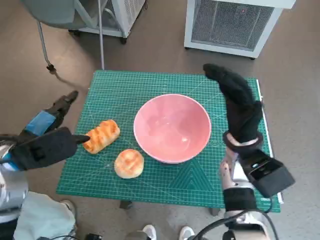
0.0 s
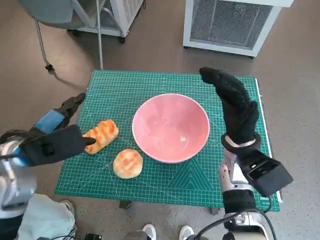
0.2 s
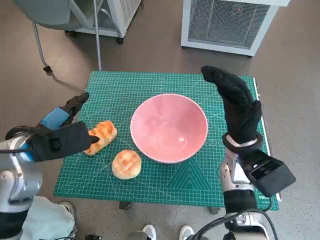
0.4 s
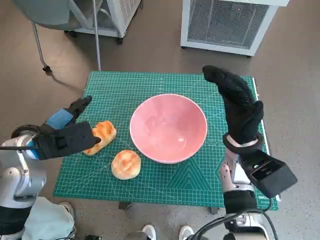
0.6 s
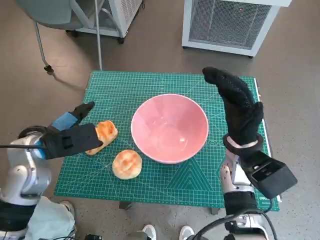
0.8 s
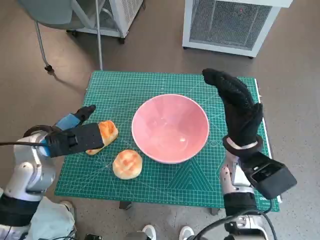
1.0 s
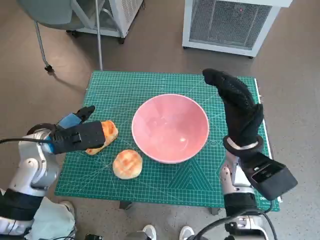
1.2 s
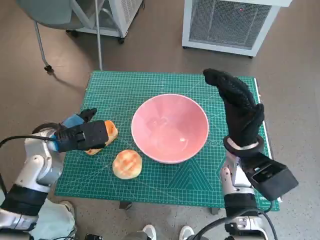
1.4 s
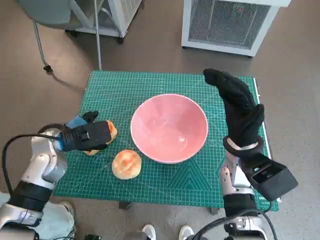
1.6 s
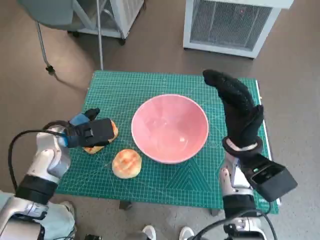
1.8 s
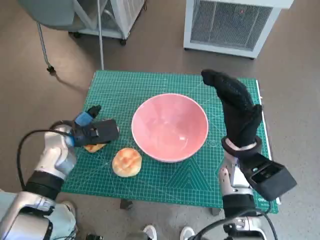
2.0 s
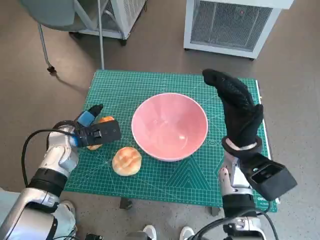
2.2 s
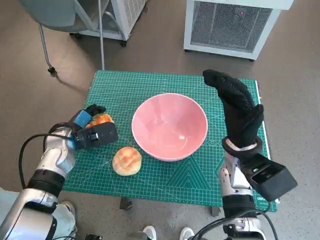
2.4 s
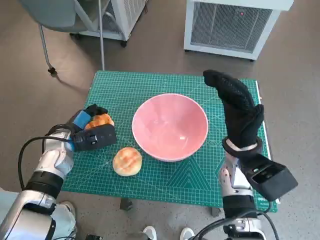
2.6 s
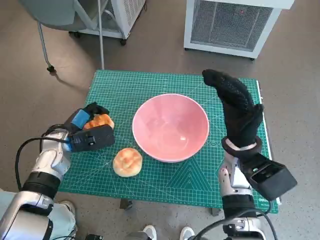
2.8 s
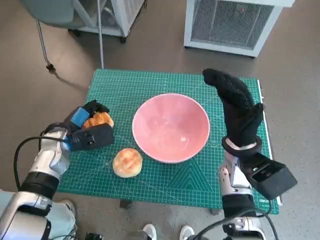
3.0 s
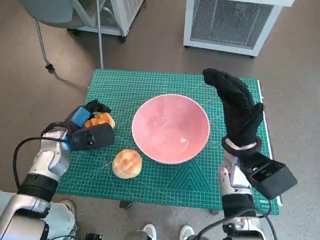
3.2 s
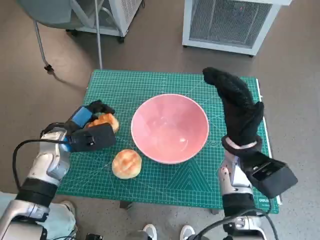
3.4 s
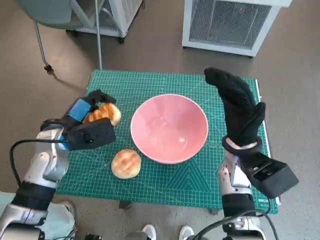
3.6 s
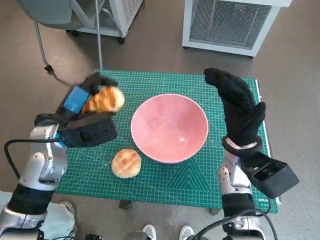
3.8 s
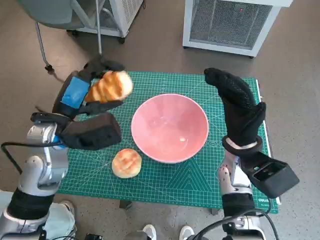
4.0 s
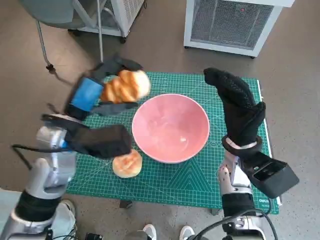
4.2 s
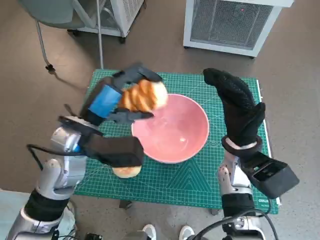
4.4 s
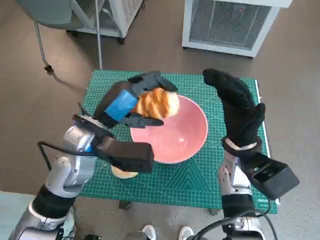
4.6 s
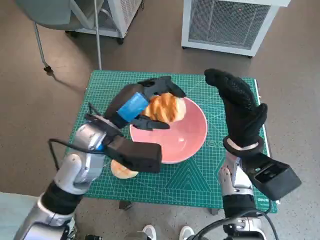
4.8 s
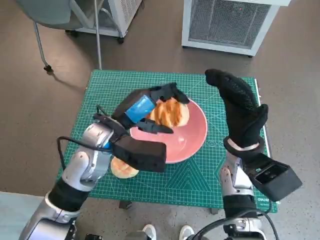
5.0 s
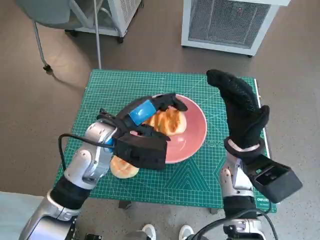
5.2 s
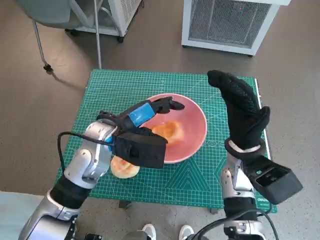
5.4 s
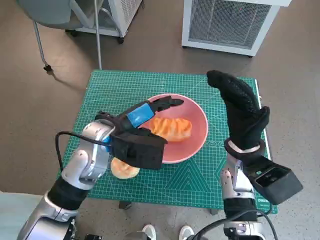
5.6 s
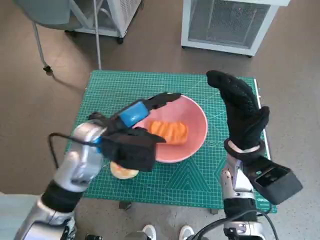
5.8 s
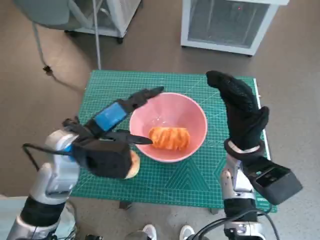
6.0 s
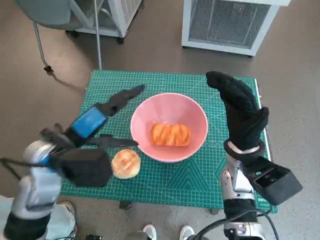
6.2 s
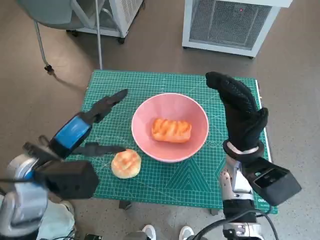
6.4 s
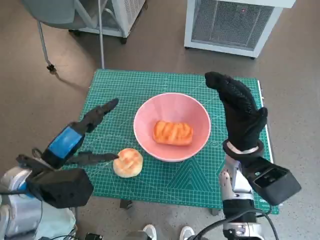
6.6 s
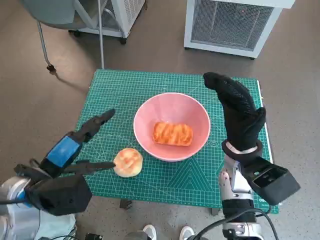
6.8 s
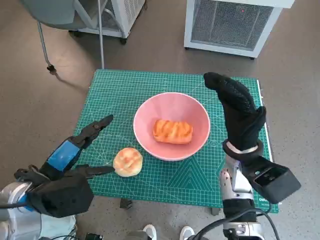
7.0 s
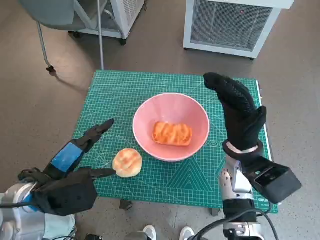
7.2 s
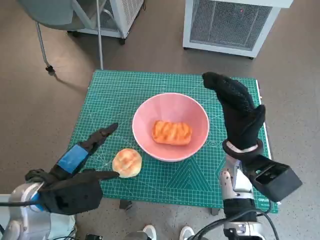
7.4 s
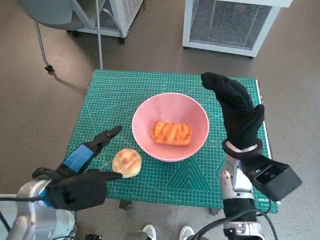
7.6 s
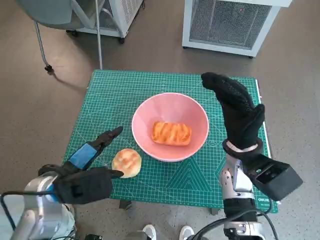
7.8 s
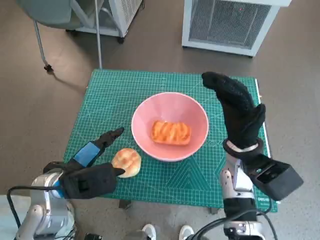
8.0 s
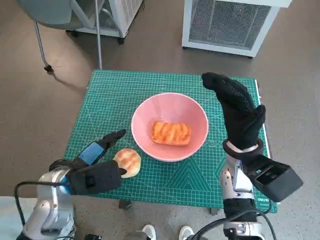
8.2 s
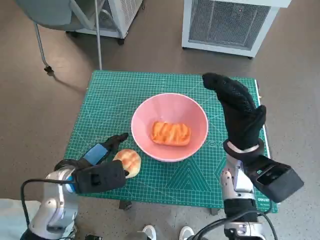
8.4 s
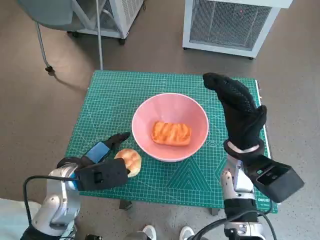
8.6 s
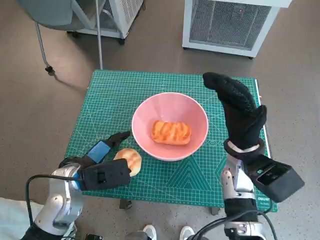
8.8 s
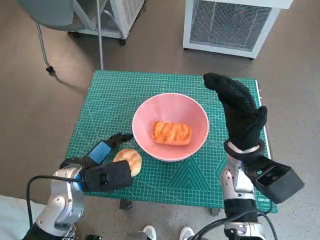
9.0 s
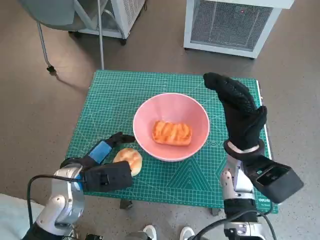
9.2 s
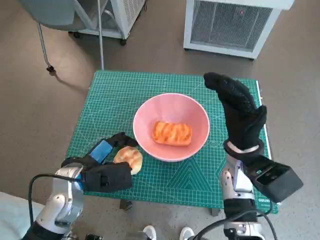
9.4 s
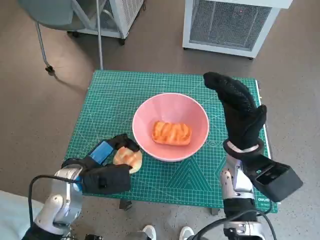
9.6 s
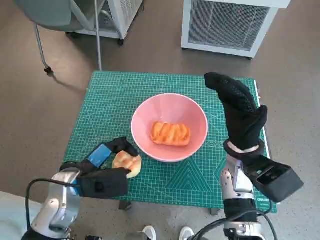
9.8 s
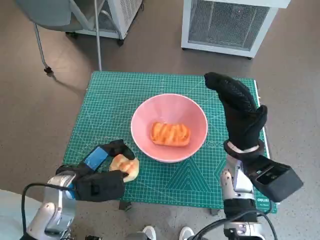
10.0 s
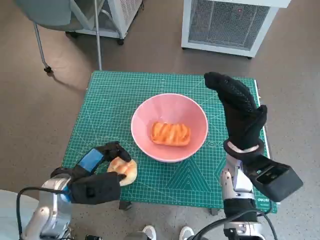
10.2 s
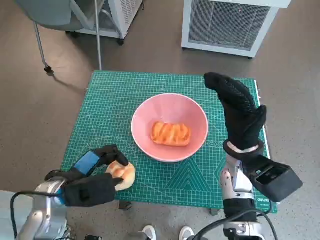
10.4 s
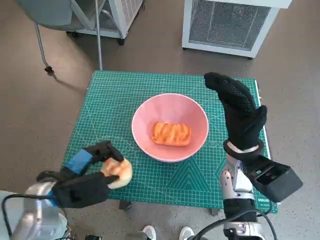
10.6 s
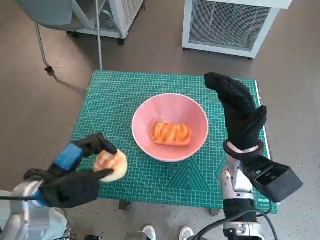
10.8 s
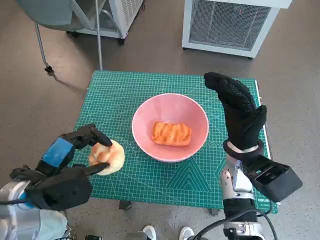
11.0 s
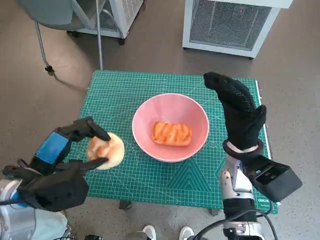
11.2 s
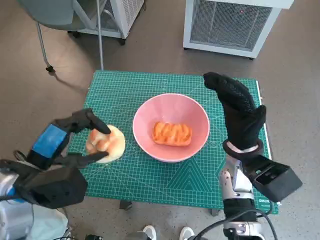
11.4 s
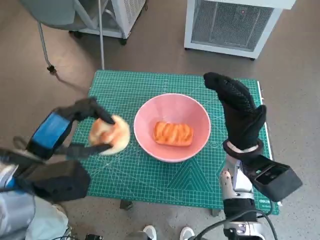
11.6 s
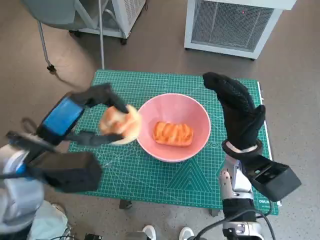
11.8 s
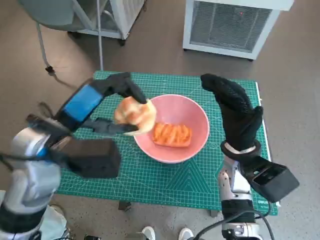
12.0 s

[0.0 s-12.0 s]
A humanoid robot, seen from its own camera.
Task of the whole recording: Push the bowl to the center of the table and put the bread into the bowl.
Step, 0.0 to 2.6 s: Grasp the long bread with left hand.
Step, 3.0 to 5.6 s: Place the long bread in pink bowl with left hand.
Step, 5.8 to 9.6 s: Grasp the round bread with left hand.
0.0 to 1.6 s: The left hand shifts roughly 10 cm forward and downward.
1.6 to 3.0 s: The hands stay close to where they were, moving slightly.
3.0 to 4.4 s: The left hand goes roughly 15 cm upward and to the right.
6.0 to 7.6 s: The left hand travels backward and to the left by approximately 10 cm.
7.6 to 9.0 s: The left hand ends up approximately 5 cm from where it was.
9.0 to 10.4 s: The hands make only small movements.
10.4 to 12.0 s: The left hand goes some 15 cm upward.

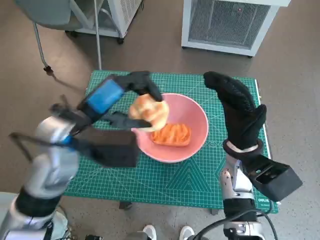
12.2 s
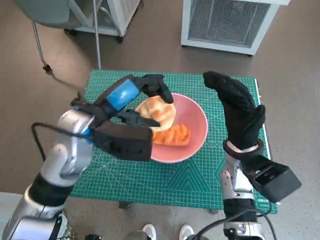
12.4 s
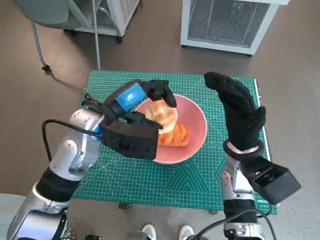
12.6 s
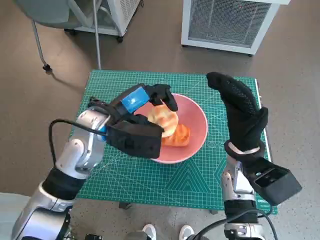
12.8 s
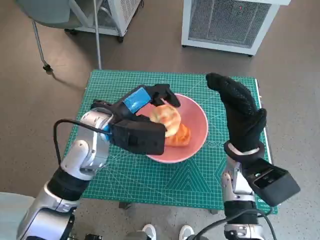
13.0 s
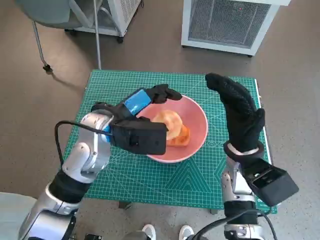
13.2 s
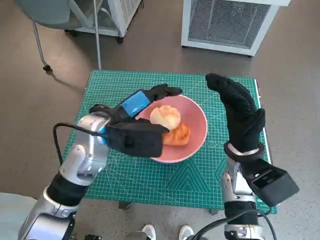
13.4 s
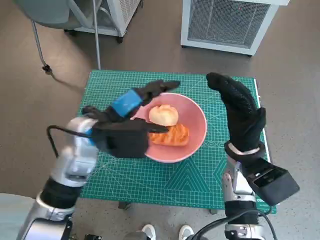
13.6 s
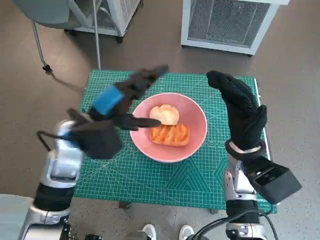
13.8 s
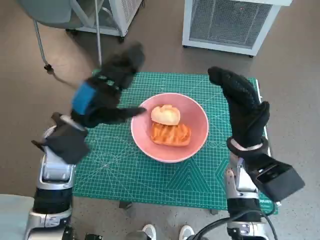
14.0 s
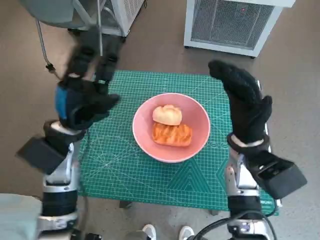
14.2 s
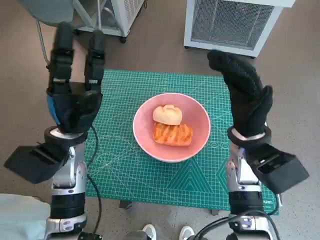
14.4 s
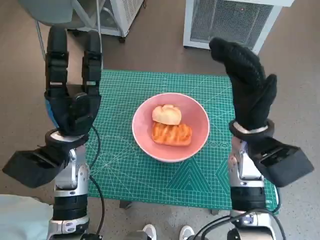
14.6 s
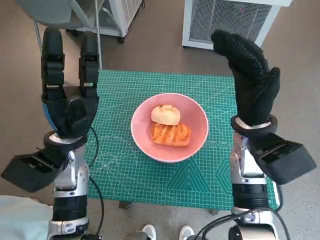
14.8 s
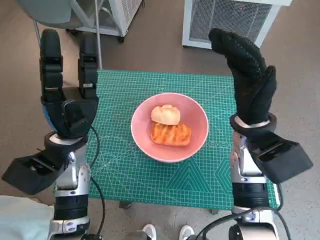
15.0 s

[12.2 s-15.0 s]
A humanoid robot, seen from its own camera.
Task of the whole recording: Push the bowl to the center of the table and put the bread into the bowl.
12.2 to 13.6 s: The left hand moves some 5 cm.
13.6 to 15.0 s: The left hand goes roughly 5 cm to the left. Meanwhile the right hand travels upward by approximately 5 cm.

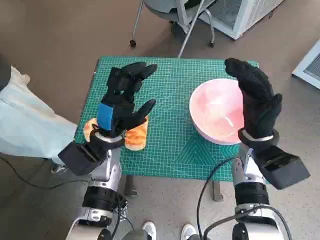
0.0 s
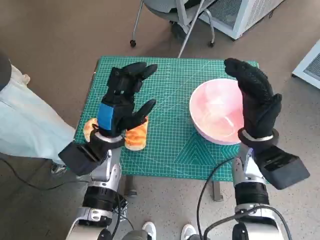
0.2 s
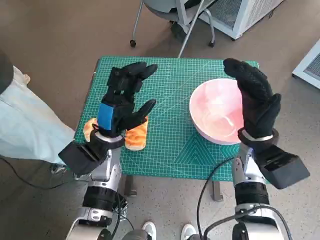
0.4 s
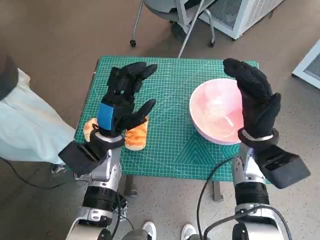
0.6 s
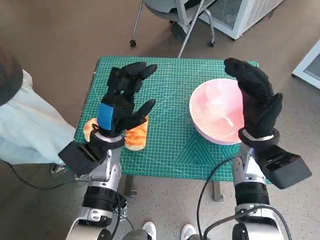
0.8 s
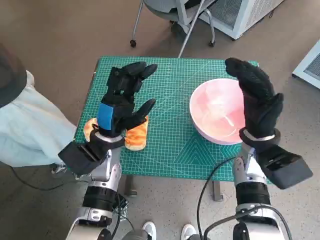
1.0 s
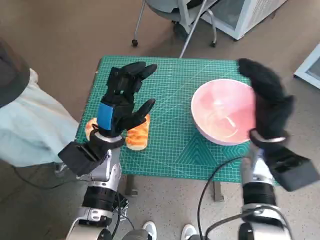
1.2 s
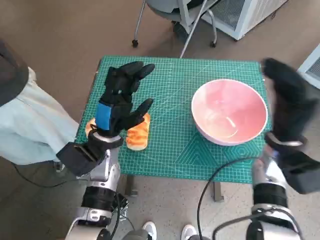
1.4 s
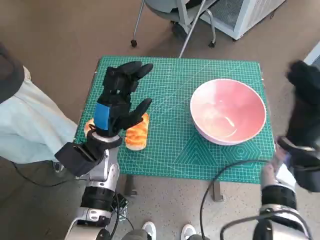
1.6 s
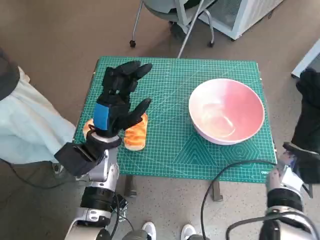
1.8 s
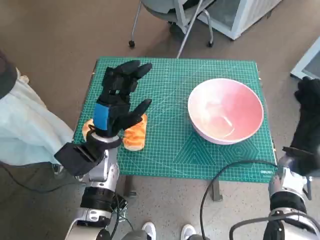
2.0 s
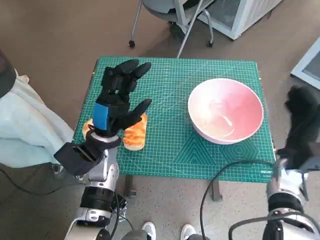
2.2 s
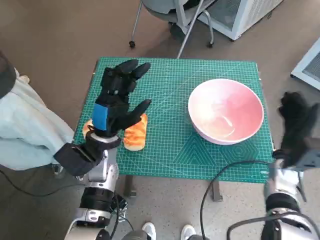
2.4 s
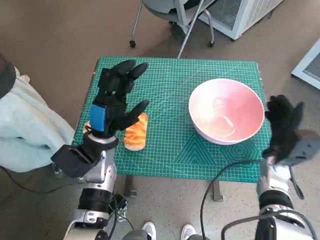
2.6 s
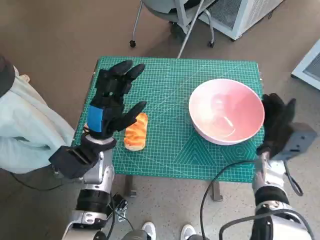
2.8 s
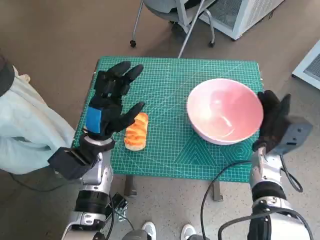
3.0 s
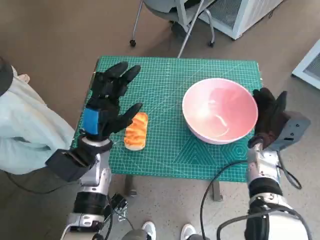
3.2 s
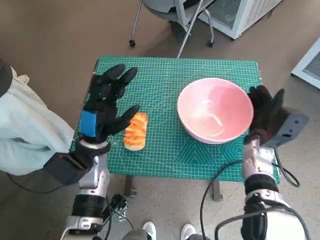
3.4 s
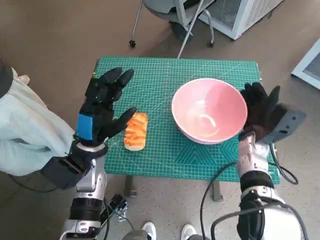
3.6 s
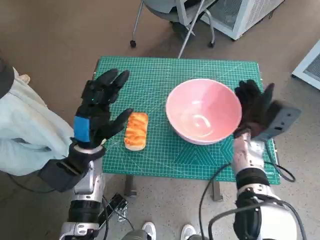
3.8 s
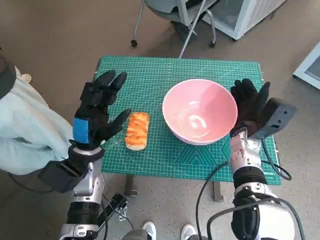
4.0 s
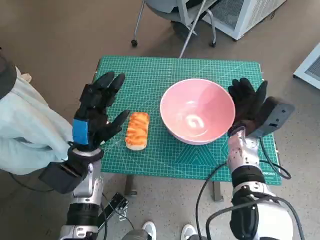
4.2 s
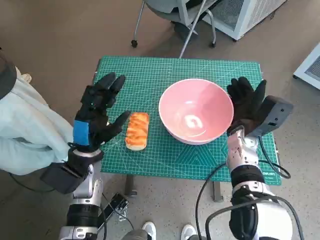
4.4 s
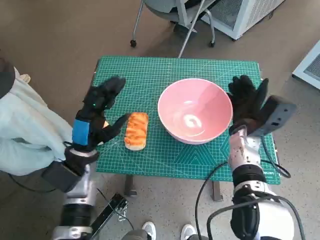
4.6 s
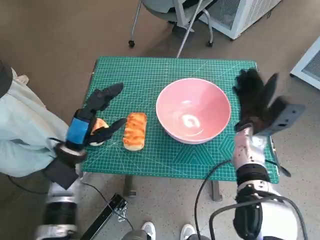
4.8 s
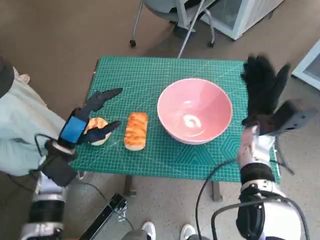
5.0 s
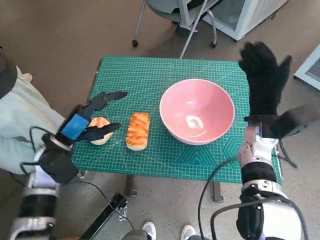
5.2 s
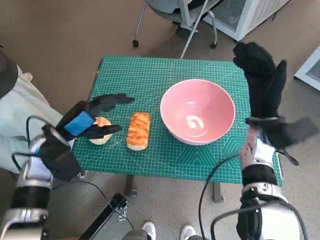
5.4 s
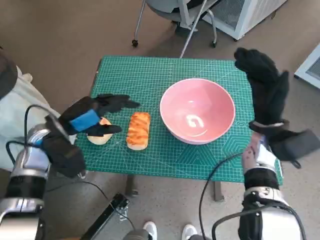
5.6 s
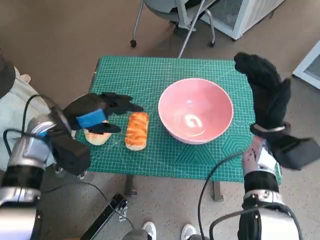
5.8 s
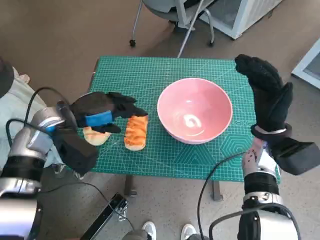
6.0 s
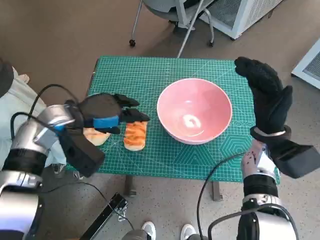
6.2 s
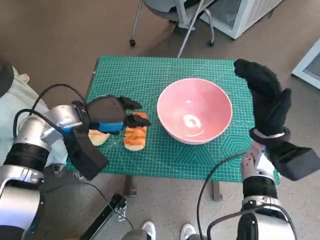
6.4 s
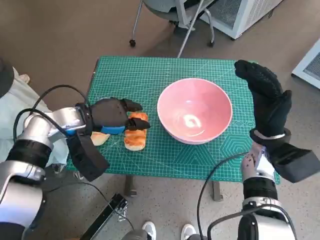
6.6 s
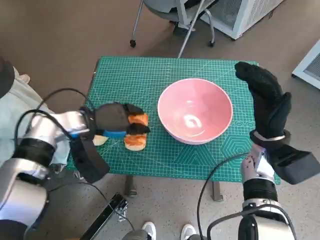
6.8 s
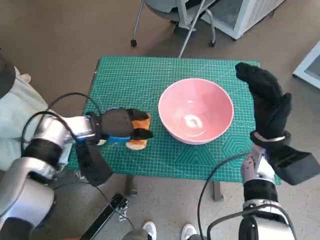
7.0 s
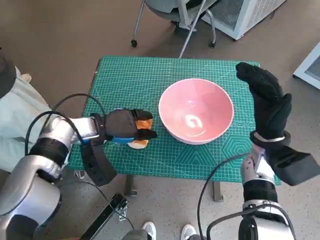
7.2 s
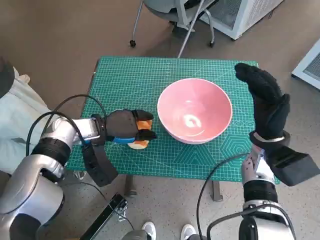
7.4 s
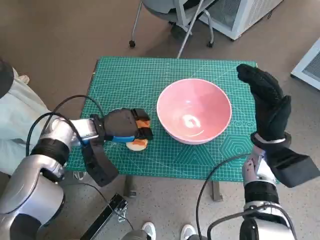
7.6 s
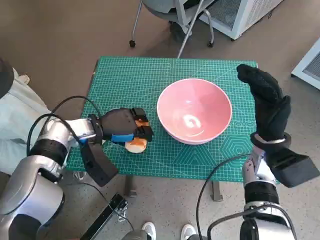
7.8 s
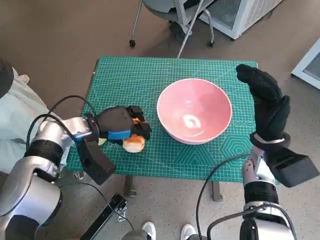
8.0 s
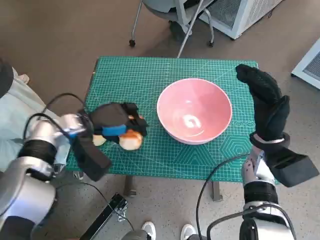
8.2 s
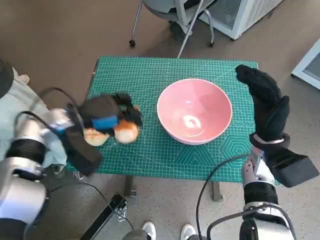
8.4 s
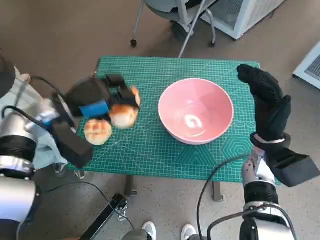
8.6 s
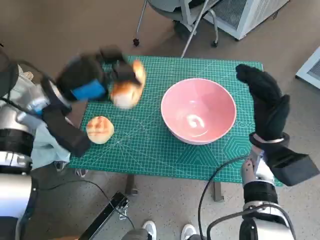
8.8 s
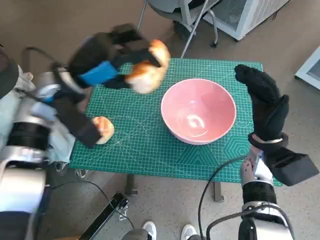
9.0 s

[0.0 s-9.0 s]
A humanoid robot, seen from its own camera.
Task of the whole recording: Push the bowl to the center of the table and put the bread into the bowl.
Step, 0.0 to 4.6 s: Move the pink bowl to the center of table with right hand.
Step, 4.8 to 7.6 s: Grasp the long bread with left hand.
1.6 to 3.0 s: The right hand is displaced downward by approximately 5 cm.
3.0 to 4.4 s: The right hand moves to the left, about 5 cm.
4.4 to 6.0 s: The left hand travels upward by approximately 10 cm. The right hand changes place by about 5 cm.
6.0 to 7.6 s: The left hand moves downward, some 5 cm.
7.6 to 9.0 s: The left hand is displaced upward by about 10 cm.
